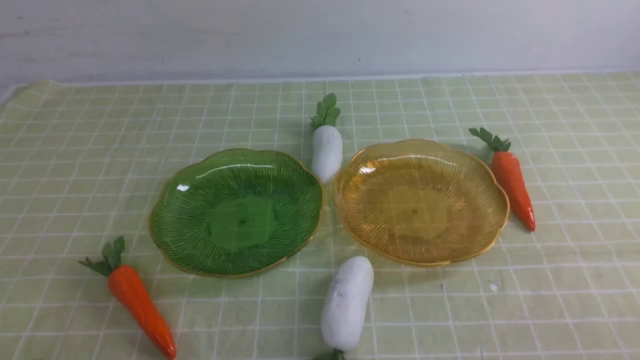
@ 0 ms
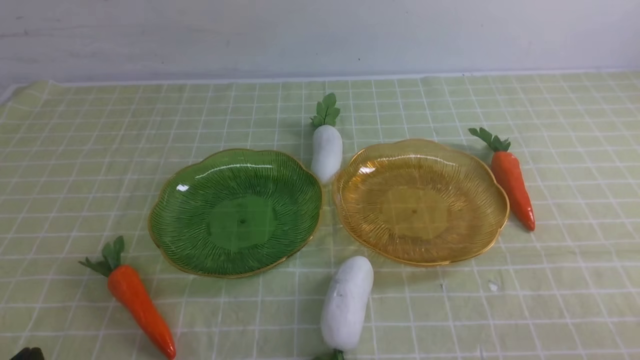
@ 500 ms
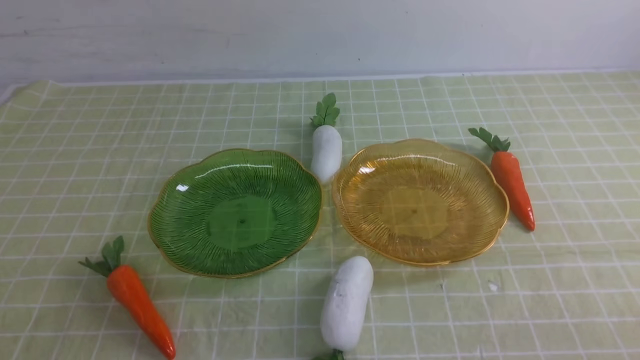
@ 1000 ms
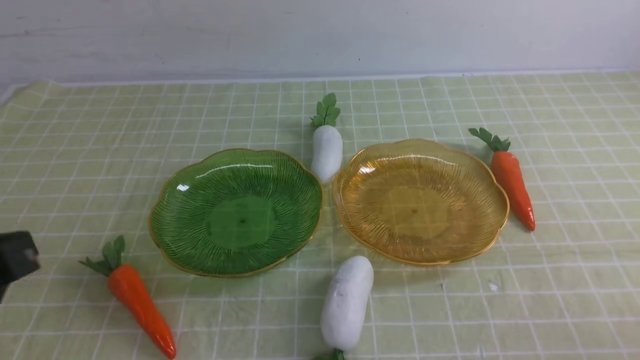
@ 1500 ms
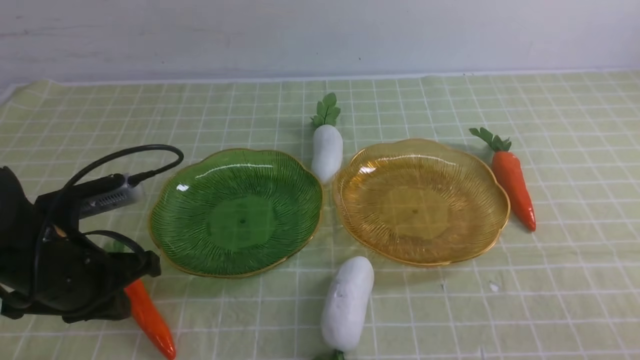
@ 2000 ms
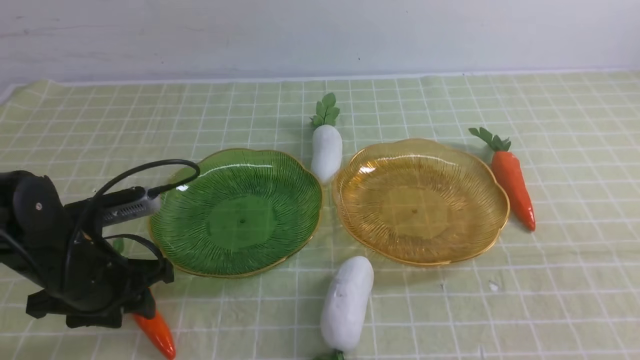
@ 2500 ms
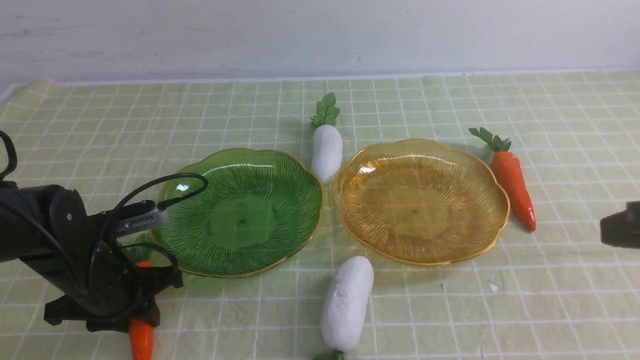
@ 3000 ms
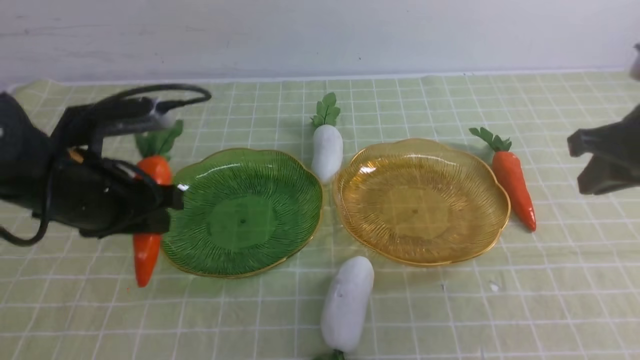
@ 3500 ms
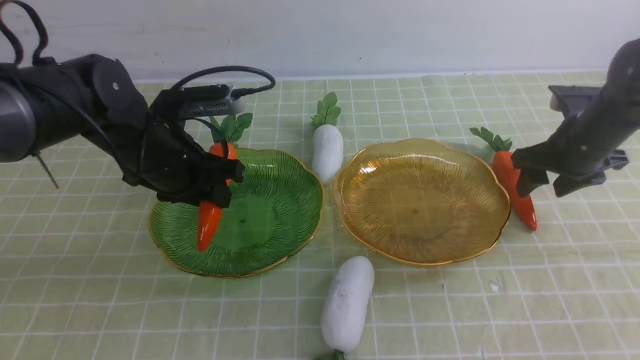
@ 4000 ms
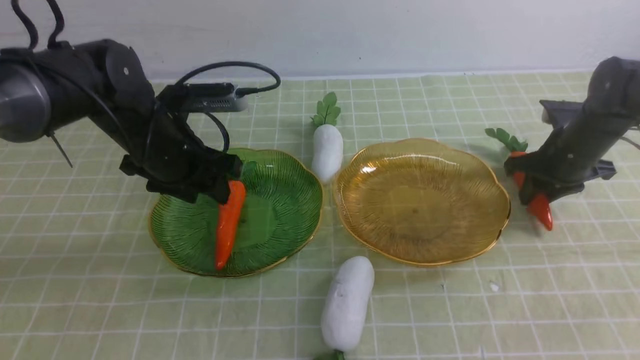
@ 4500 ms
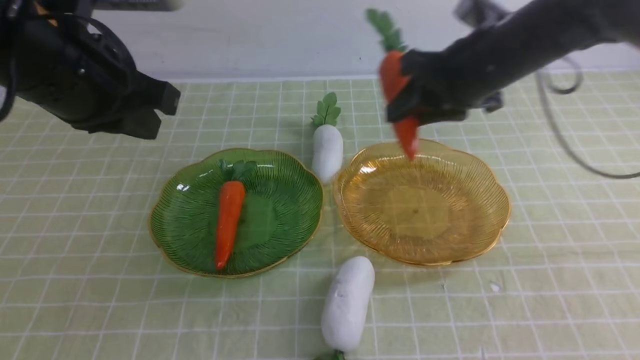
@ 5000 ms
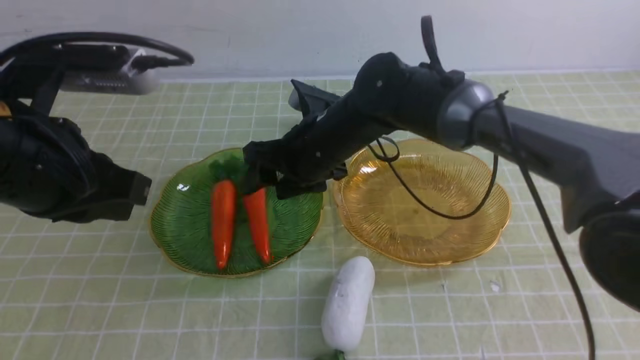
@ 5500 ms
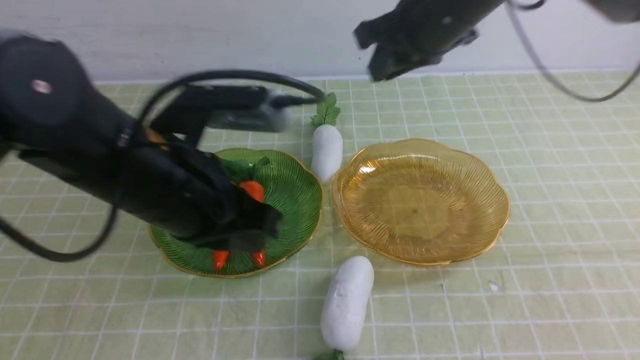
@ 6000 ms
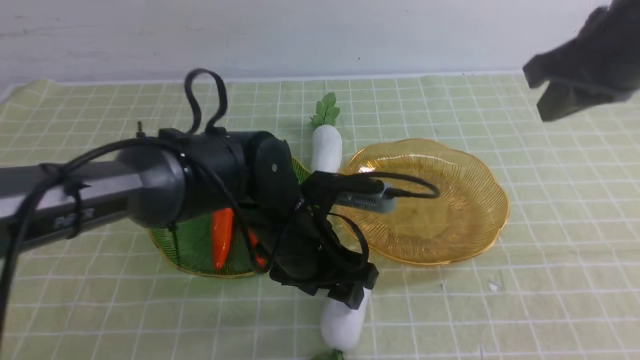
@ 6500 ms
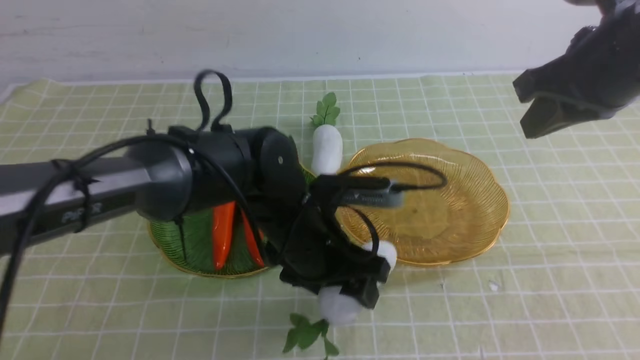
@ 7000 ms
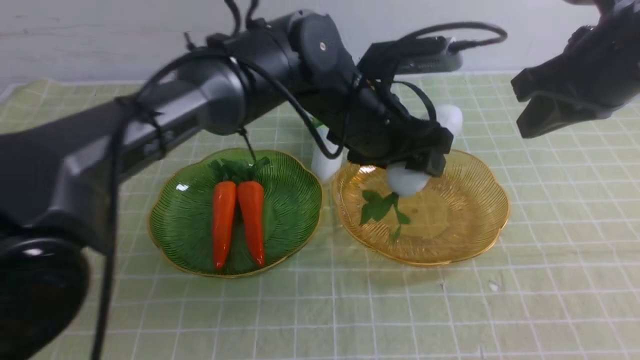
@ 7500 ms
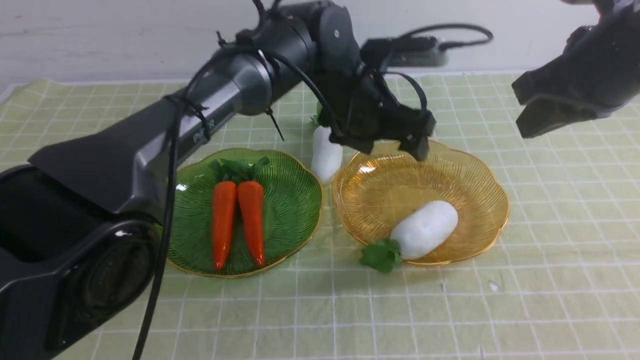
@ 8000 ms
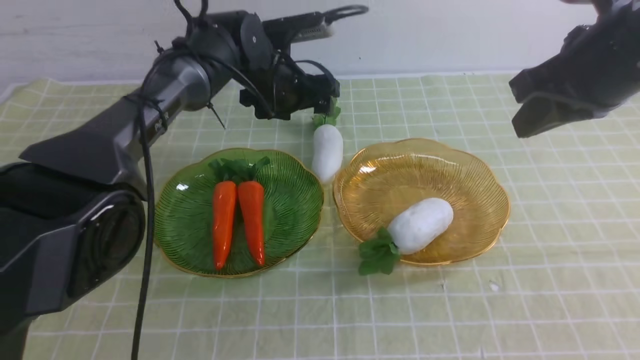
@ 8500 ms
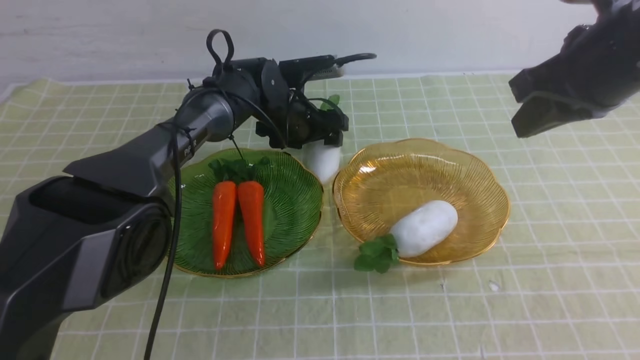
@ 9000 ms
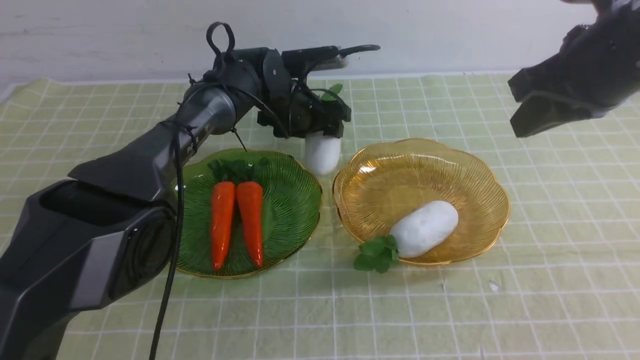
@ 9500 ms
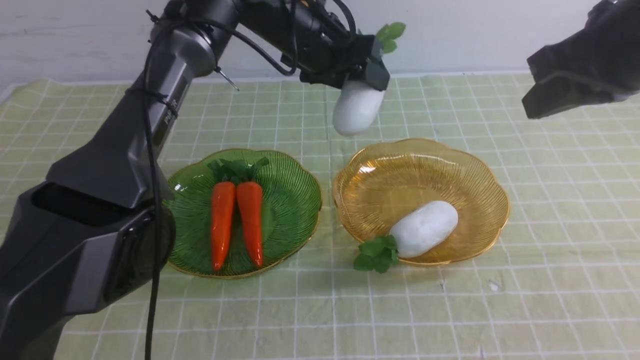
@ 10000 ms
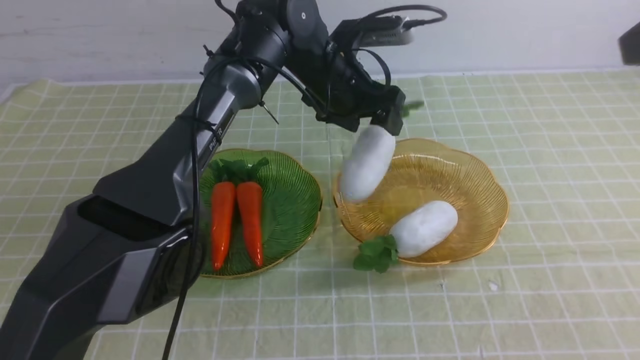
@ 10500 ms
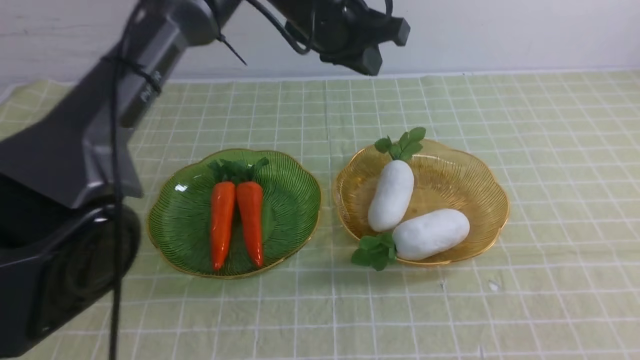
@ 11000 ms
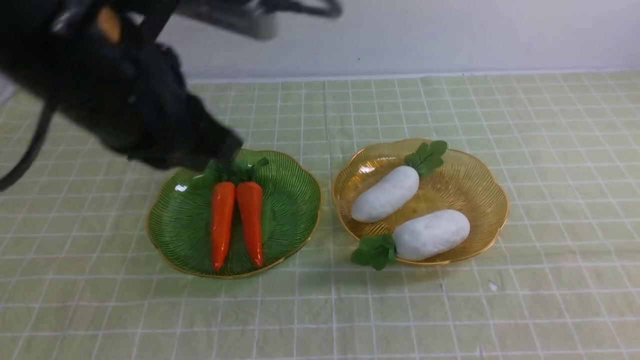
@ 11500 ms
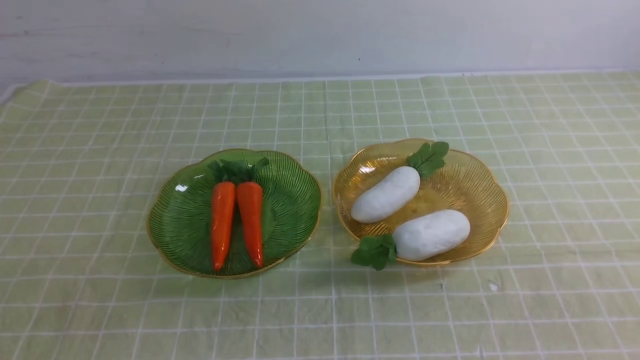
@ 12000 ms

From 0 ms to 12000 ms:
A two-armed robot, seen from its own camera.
Step, from 0 ms to 4500 ms: use the left arm to grab a carrot and put it into the left plate.
Step, from 5000 ms to 6000 ms: use the right arm to grab a carrot and put it into the left plate.
Step, from 6500 ms to 11000 ms: use the left arm to grab a radish and put it into the right plate.
From 0 ms to 2000 ms: The left gripper shifts some 20 cm forward.
From 2000 ms to 4000 ms: The right gripper is displaced forward by approximately 35 cm, and opens up. The left gripper shifts about 15 cm forward and to the right, and opens up.
From 4000 ms to 6000 ms: The left gripper goes roughly 15 cm backward, upward and to the right, and closes its fingers; the right gripper is displaced upward and to the left by some 25 cm, and closes its fingers.
From 6000 ms to 8000 ms: The right gripper goes roughly 15 cm to the right and backward, and closes its fingers. Meanwhile the left gripper heads forward and to the right, covering roughly 20 cm, and opens its fingers.
From 8000 ms to 10000 ms: The left gripper is displaced forward by about 5 cm, and goes downward and returns, about 10 cm each way.
From 10000 ms to 12000 ms: The right gripper heads backward, covering roughly 25 cm. The left gripper is displaced backward and to the left by about 50 cm, and closes.
